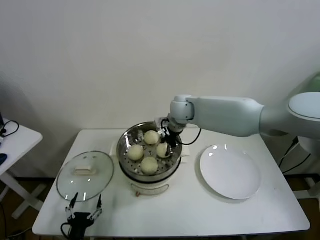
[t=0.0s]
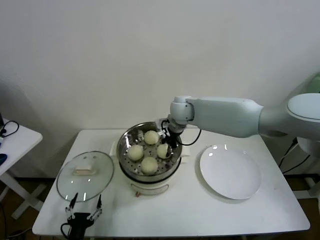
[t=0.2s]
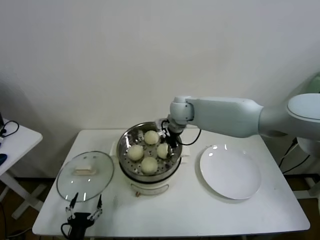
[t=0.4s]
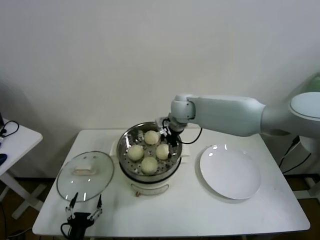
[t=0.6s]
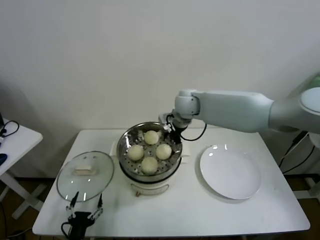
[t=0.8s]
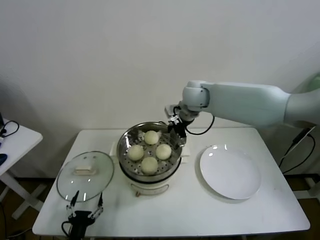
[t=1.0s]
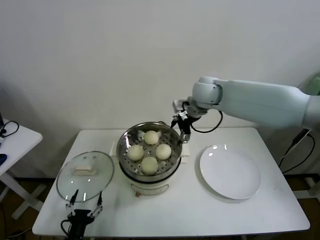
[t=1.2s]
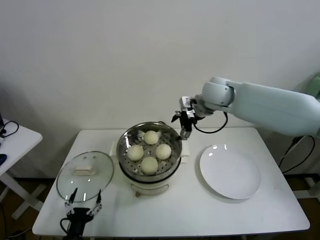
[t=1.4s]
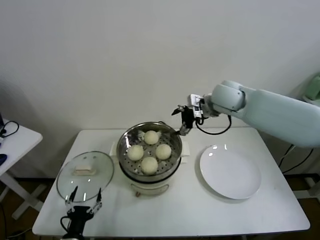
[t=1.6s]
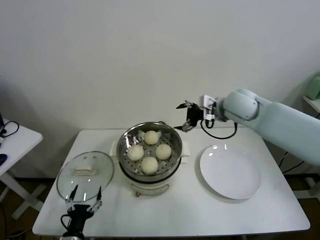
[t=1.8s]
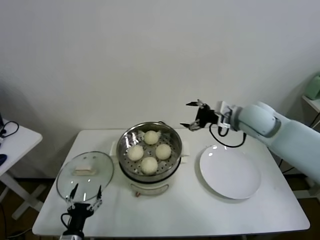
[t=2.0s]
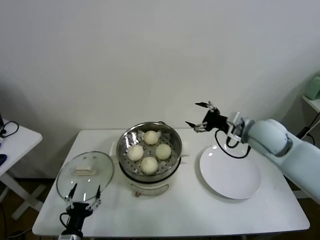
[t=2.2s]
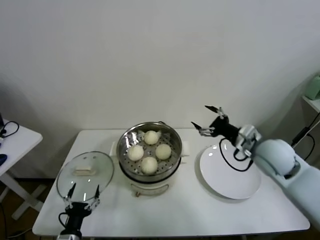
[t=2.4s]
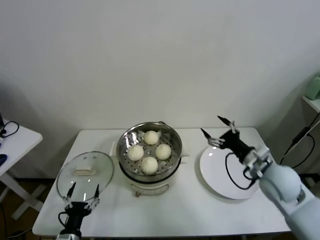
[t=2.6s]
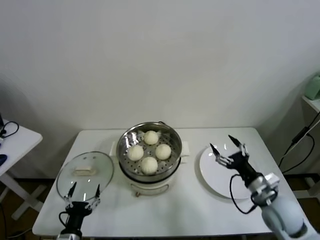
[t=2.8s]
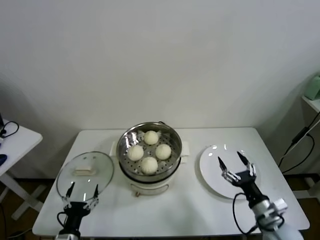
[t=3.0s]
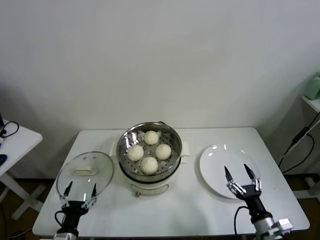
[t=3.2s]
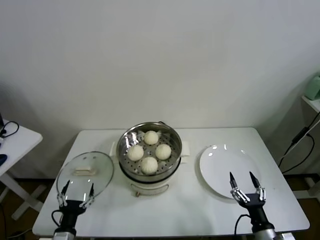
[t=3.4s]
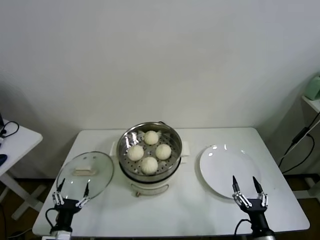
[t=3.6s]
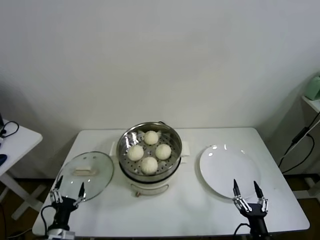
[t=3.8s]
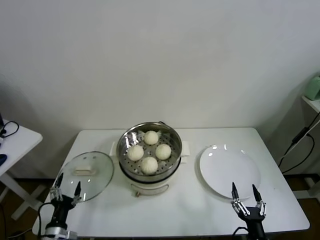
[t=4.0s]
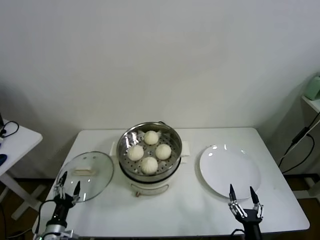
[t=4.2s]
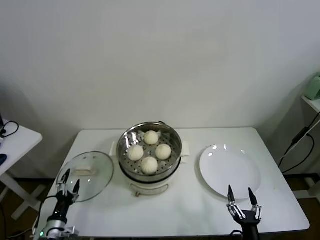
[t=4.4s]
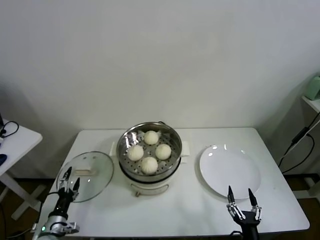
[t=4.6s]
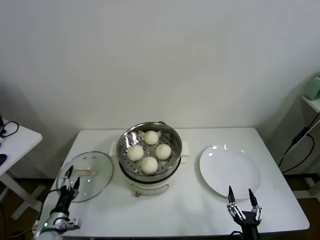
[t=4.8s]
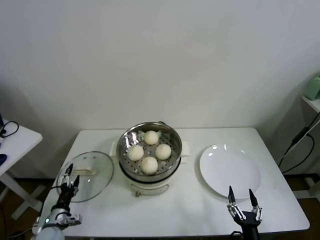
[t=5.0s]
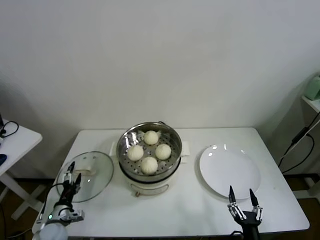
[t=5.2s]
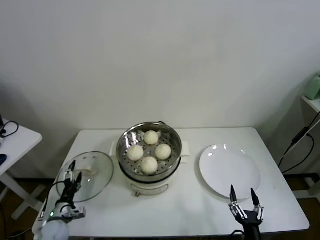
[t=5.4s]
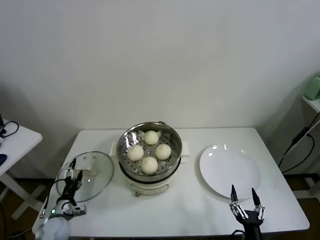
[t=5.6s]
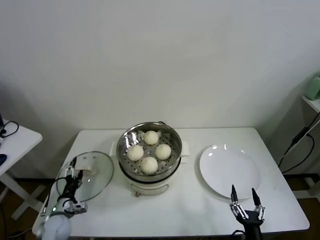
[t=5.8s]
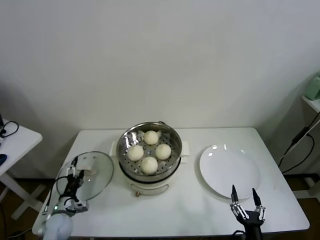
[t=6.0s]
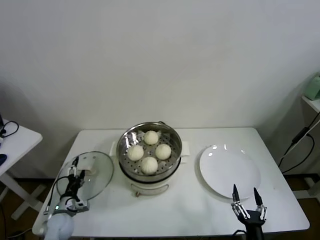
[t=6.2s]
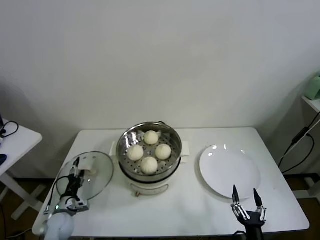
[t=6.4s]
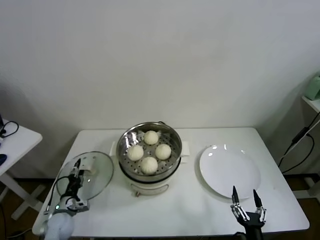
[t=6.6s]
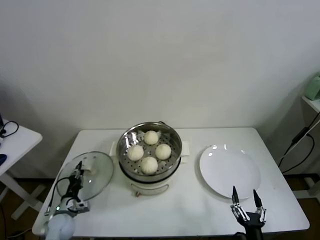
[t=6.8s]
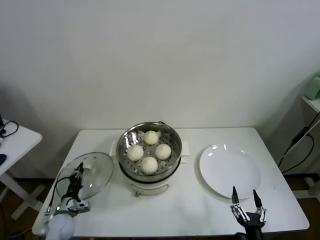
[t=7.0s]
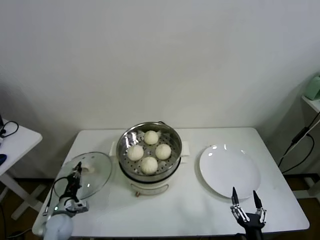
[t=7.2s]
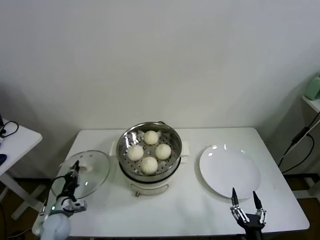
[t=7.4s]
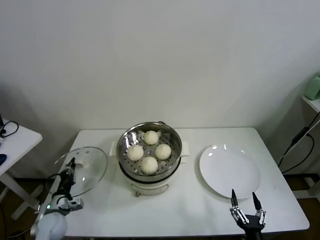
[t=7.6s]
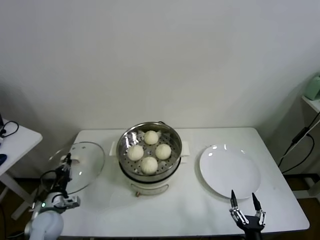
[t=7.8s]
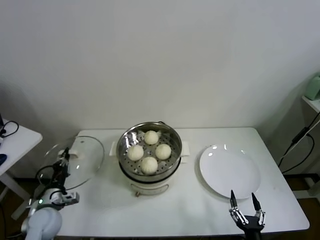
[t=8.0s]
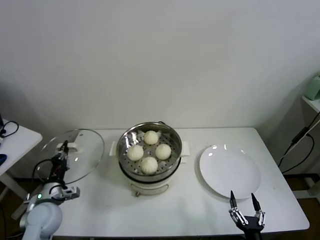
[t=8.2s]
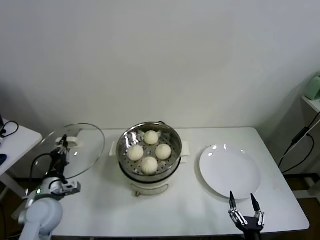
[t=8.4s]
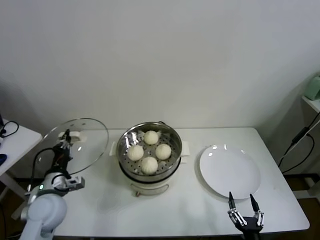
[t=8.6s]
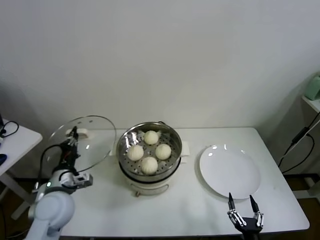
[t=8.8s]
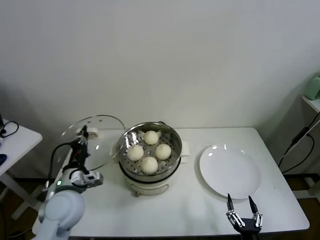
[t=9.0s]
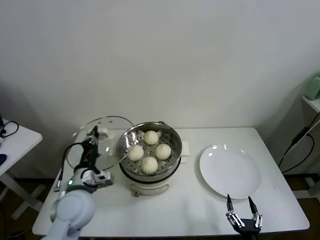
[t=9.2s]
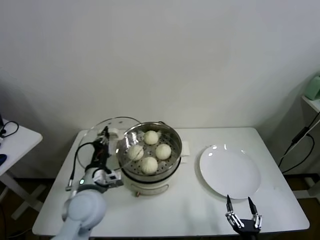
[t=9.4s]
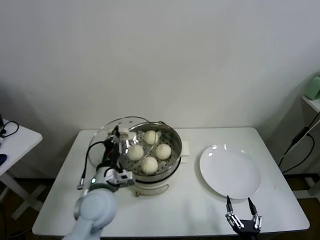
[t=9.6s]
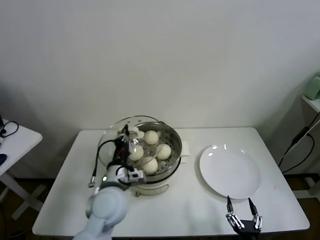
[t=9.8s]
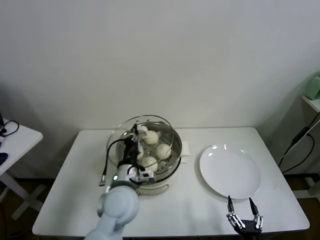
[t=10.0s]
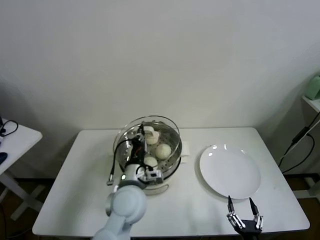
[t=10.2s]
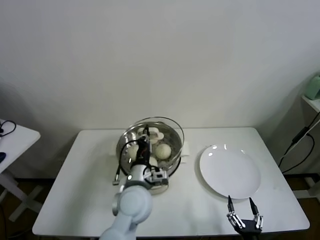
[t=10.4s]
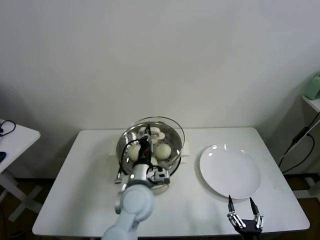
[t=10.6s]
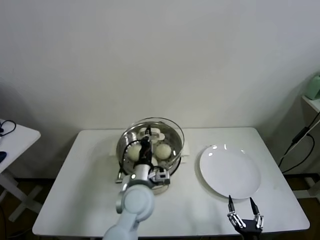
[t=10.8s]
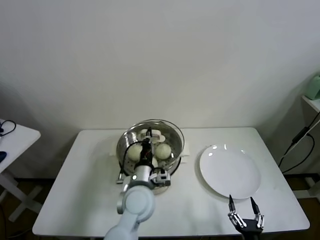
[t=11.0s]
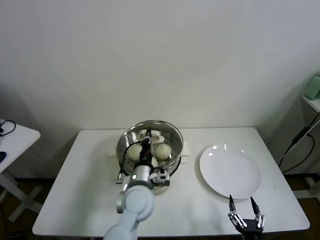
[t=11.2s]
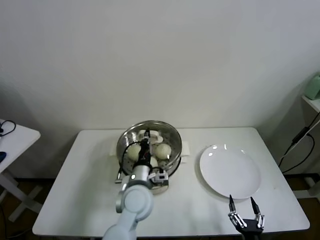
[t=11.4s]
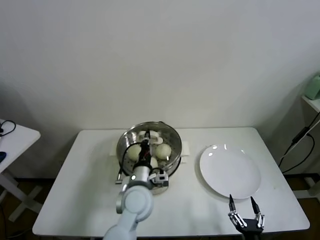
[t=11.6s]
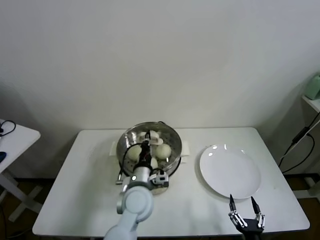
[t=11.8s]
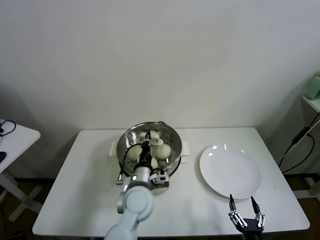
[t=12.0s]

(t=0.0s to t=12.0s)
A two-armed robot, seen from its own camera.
Task of the whole recording: take steamed baozi put them in steamer.
Step, t=0.8s - t=7.0s: Grasp the pot lid with left gripper.
t=0.0s - t=1.6s: The right gripper is displaced to the right and upward by roughly 15 cm, and opens up.
t=1.6s - t=3.0s: The right gripper goes approximately 40 cm backward, downward and to the right.
t=3.0s - t=4.4s: The left gripper is displaced to the left by approximately 10 cm; the right gripper shifts approximately 15 cm backward, downward and to the left.
t=4.4s - t=6.0s: The left gripper is displaced forward by some 10 cm.
t=6.0s - t=7.6s: The left gripper closes up.
t=7.6s - t=9.0s: The left gripper travels upward and to the right by about 20 cm.
t=9.0s - t=10.4s: The left gripper shifts some 20 cm to the right.
t=10.4s - t=12.0s: There are only small adjustments of the grippers.

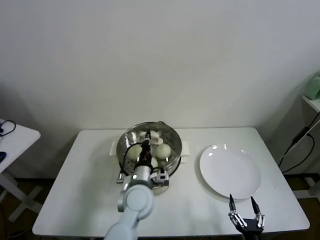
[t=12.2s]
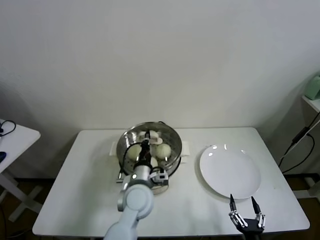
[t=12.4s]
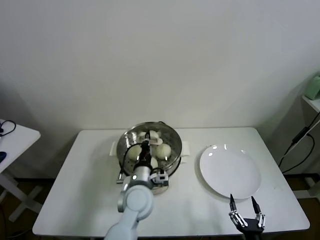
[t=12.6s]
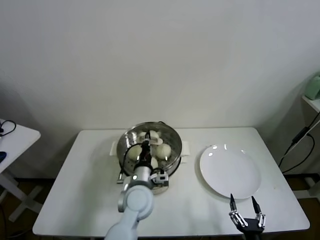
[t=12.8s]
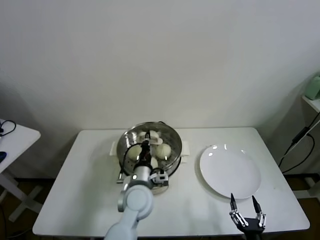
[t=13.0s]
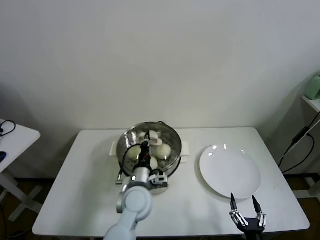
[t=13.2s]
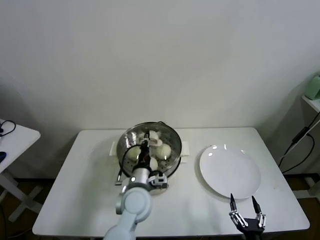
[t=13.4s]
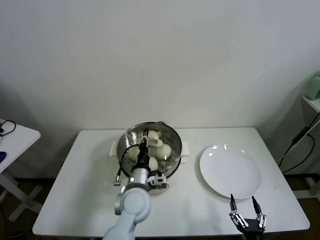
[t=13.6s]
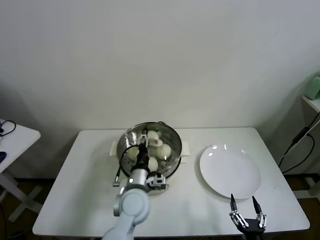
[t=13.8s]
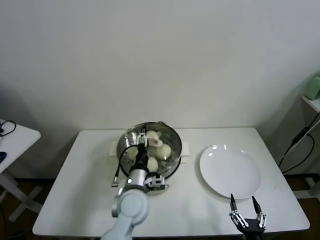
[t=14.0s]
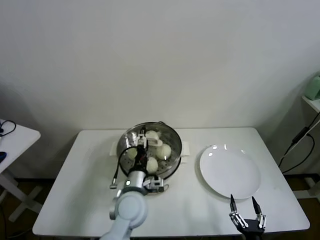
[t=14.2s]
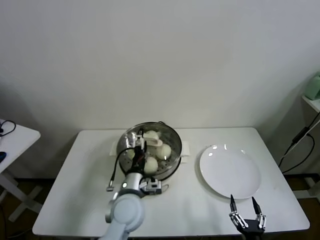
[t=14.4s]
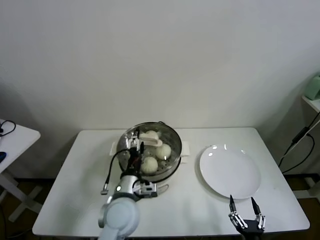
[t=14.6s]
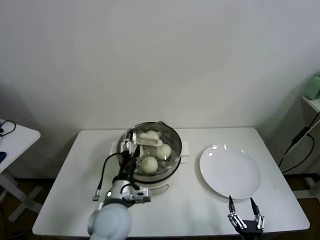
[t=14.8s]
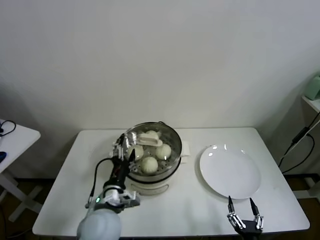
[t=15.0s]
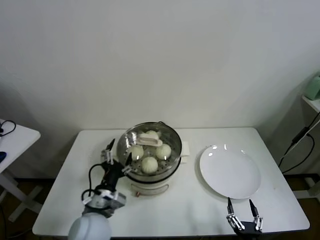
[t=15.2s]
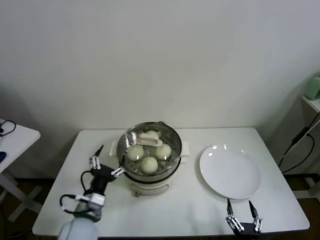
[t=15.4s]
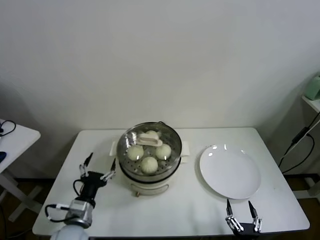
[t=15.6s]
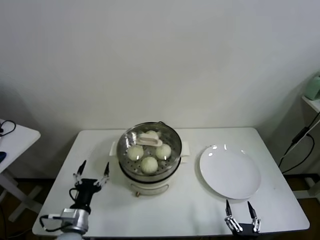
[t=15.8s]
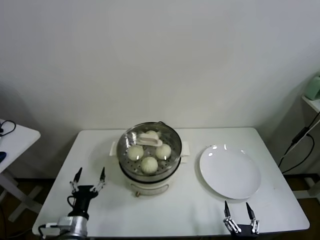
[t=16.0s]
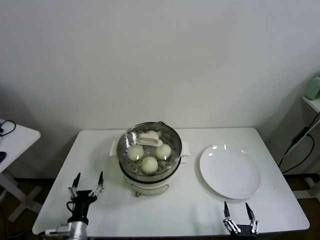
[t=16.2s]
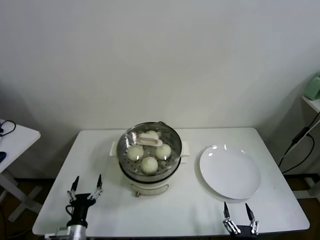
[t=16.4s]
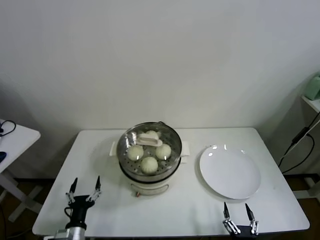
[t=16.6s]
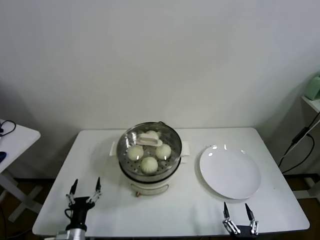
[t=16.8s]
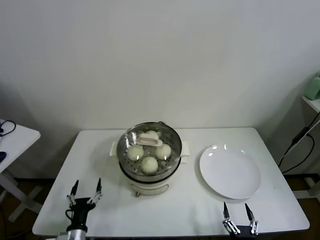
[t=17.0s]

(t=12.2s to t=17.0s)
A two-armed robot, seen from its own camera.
Task of the whole recording: take steamed baozi put them in steamer.
Step, t=12.2s - t=14.6s: Place the pot lid on the steamer with left gripper.
t=12.2s - t=13.8s: The left gripper opens its fingers.
t=13.8s - t=15.4s: The left gripper goes some 15 cm to the left and backward, and opens its fingers.
t=15.4s - t=17.0s: The left gripper travels downward, to the left and backward by some 20 cm.

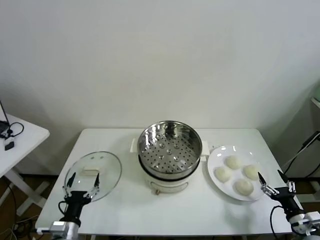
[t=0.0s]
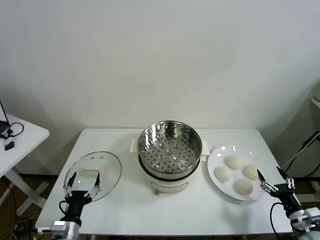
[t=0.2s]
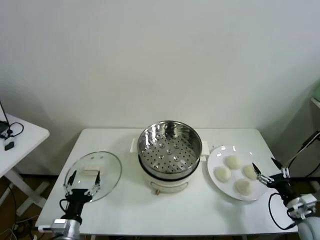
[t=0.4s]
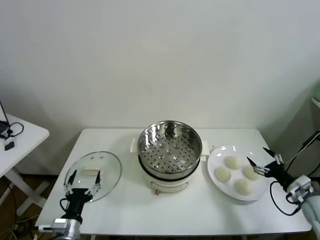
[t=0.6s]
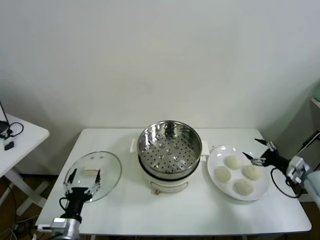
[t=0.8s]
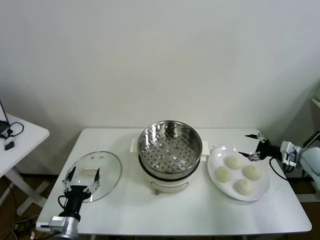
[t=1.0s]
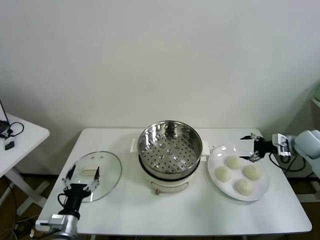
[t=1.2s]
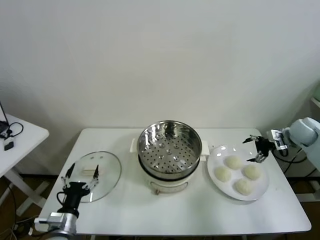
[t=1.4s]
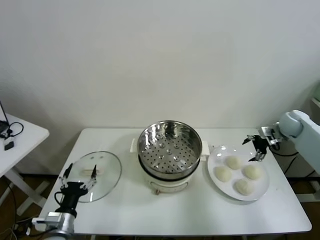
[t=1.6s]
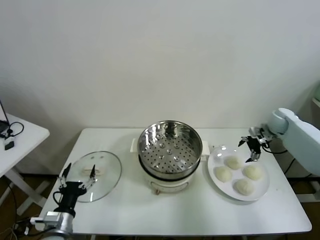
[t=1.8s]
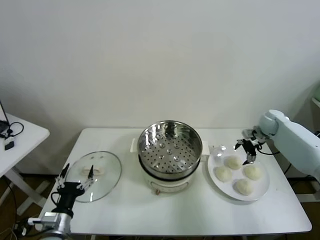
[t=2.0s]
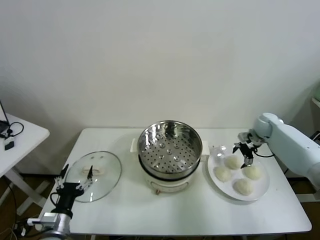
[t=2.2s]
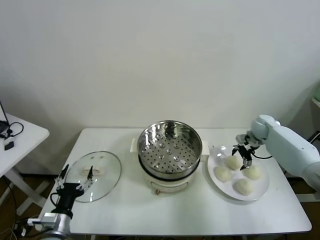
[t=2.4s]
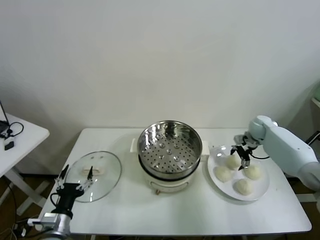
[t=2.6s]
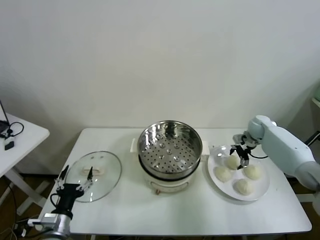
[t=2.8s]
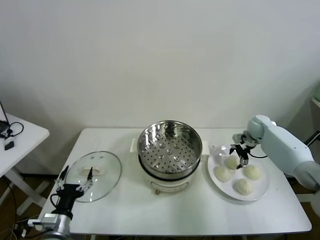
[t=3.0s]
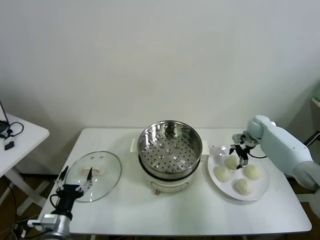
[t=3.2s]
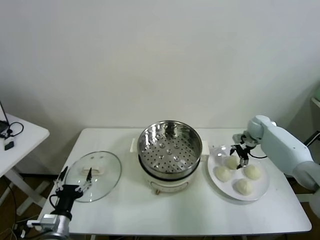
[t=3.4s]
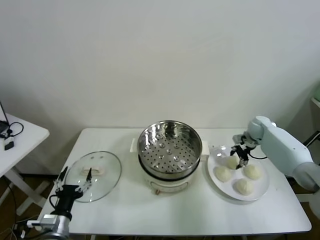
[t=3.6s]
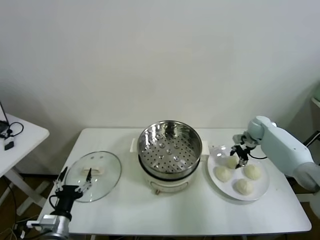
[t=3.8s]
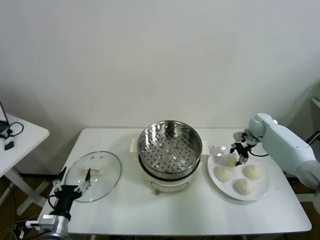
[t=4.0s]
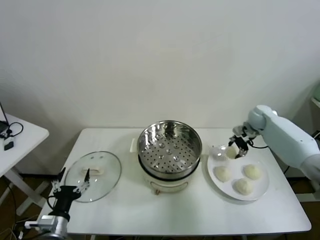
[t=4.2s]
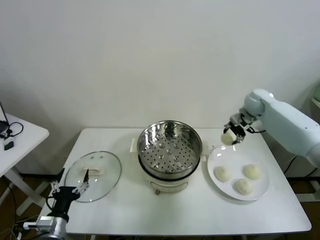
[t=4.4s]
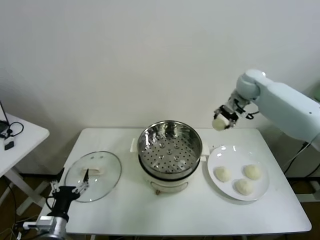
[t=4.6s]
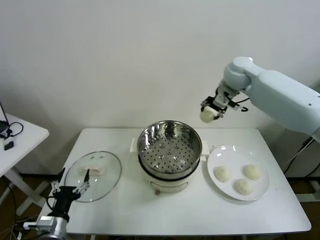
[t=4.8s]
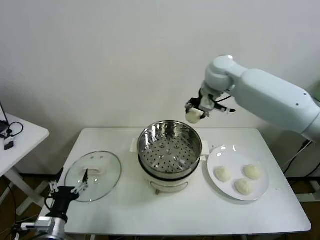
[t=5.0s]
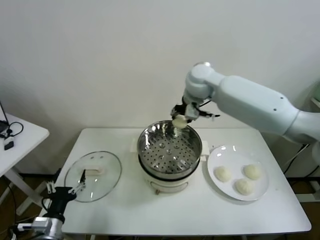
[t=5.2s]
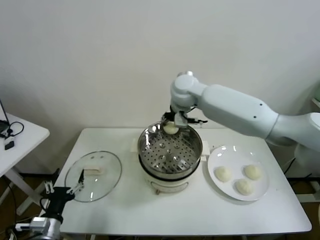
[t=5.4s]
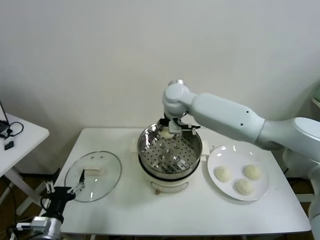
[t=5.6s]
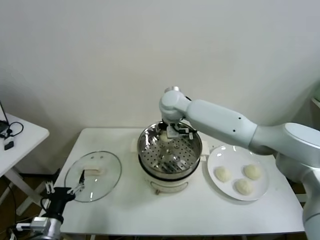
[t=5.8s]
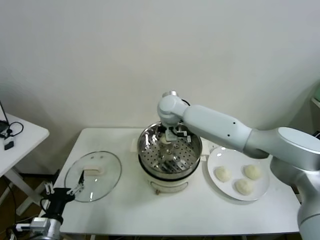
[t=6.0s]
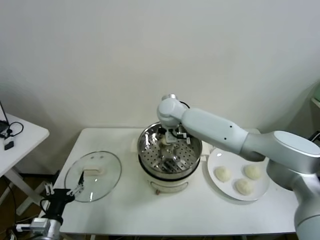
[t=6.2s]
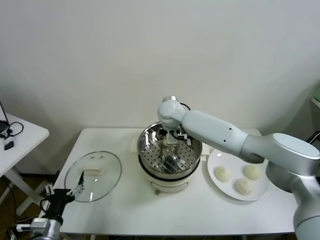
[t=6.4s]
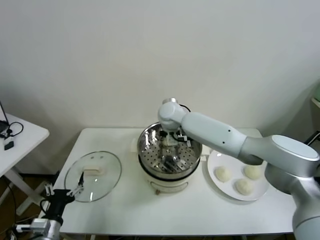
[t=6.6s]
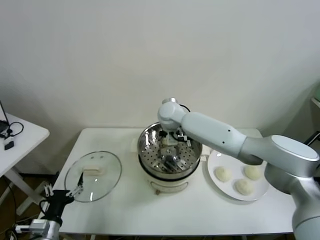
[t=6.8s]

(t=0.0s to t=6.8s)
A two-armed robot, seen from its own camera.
Task of the whole recording: take steamed baozi put them in steamer.
Step, t=0.0s - t=3.6s: Grasp the baozi in the plate with right gripper.
t=1.4s - t=2.8s: The right gripper moves to the left, downward and forward, roughly 15 cm.
t=2.8s - t=4.0s: The right gripper closes its fingers.
t=4.0s - t=5.4s: The right gripper travels to the left and upward by some 40 cm.
t=5.4s - t=6.8s: The right gripper heads downward, covering roughly 10 cm, and opens up.
